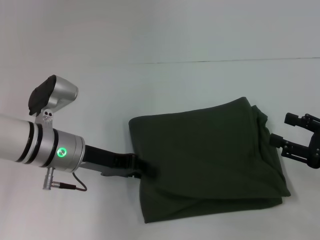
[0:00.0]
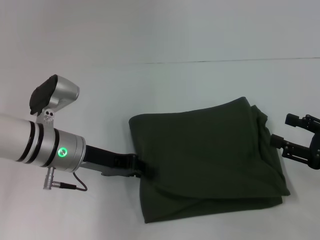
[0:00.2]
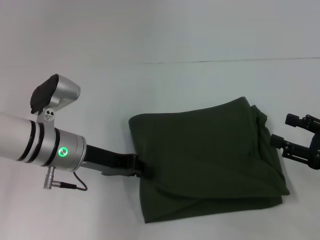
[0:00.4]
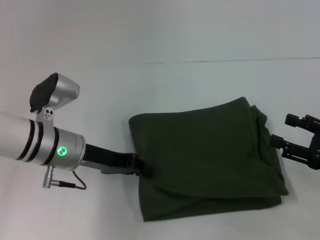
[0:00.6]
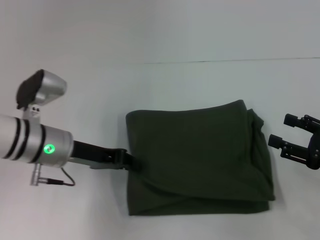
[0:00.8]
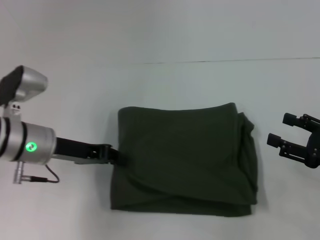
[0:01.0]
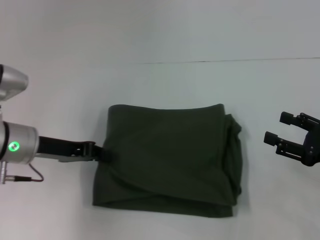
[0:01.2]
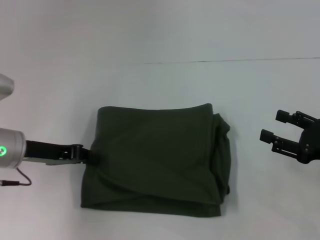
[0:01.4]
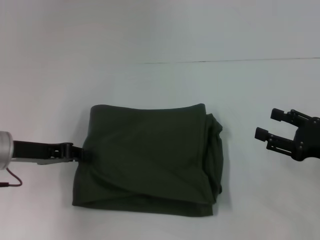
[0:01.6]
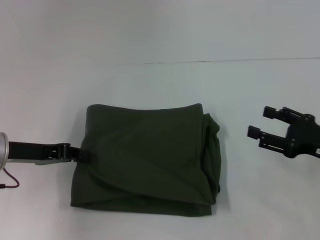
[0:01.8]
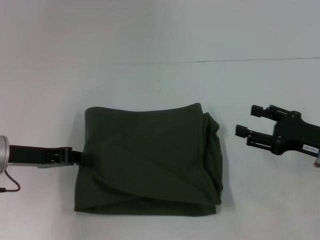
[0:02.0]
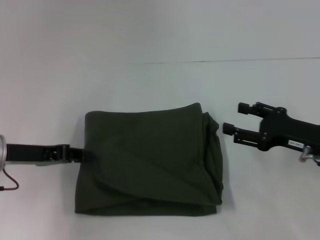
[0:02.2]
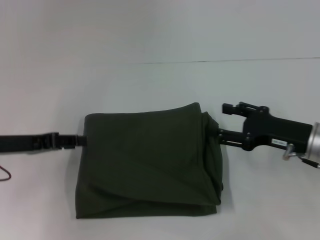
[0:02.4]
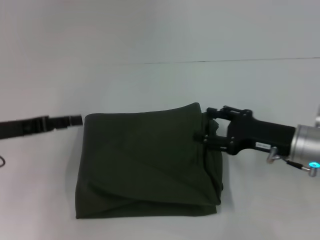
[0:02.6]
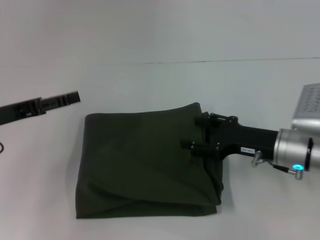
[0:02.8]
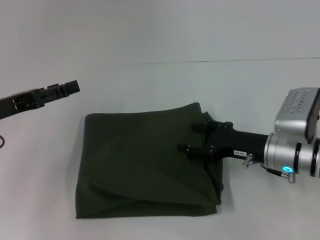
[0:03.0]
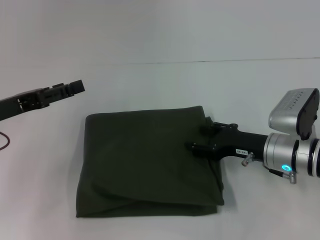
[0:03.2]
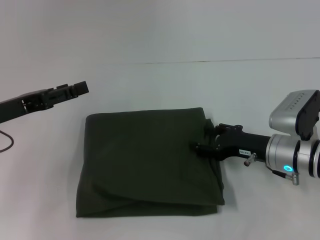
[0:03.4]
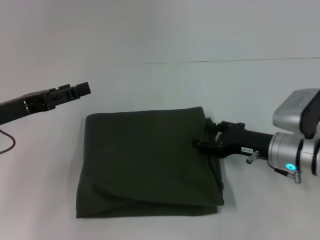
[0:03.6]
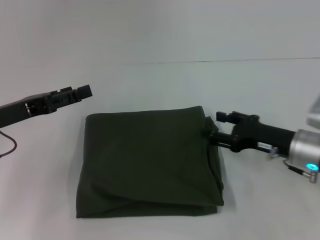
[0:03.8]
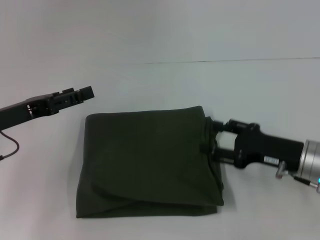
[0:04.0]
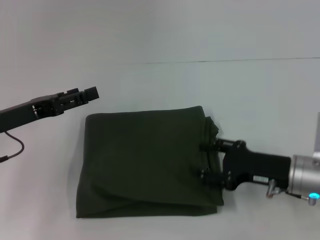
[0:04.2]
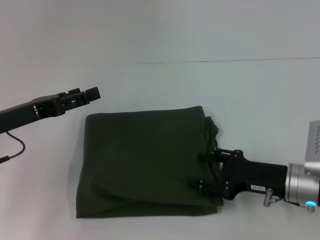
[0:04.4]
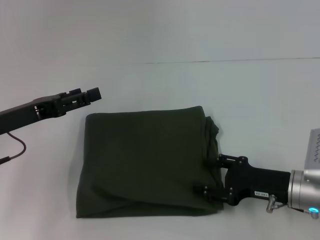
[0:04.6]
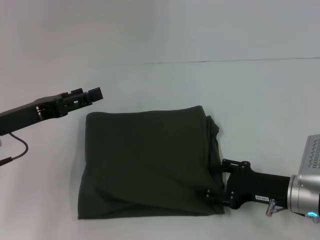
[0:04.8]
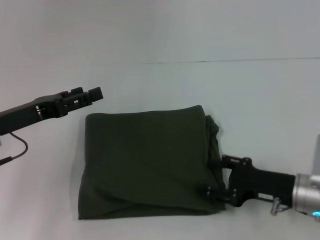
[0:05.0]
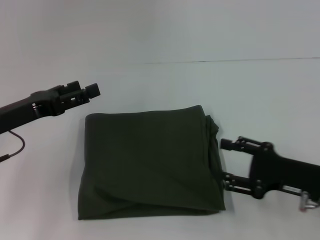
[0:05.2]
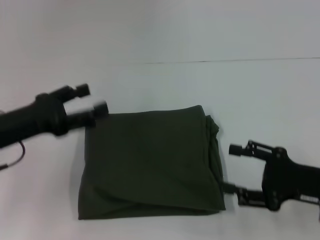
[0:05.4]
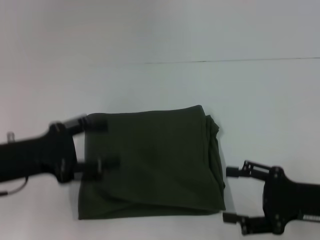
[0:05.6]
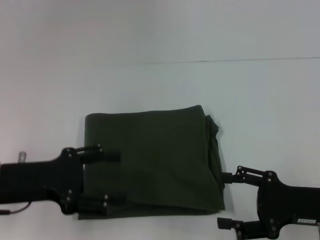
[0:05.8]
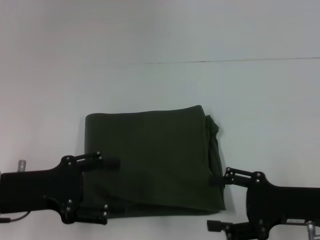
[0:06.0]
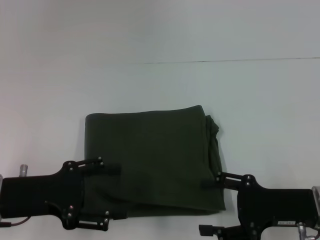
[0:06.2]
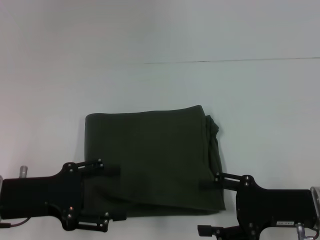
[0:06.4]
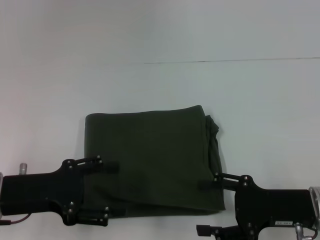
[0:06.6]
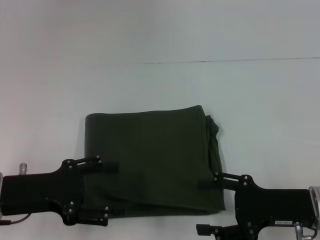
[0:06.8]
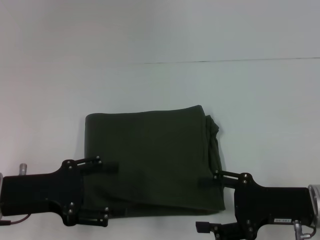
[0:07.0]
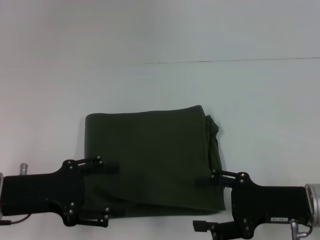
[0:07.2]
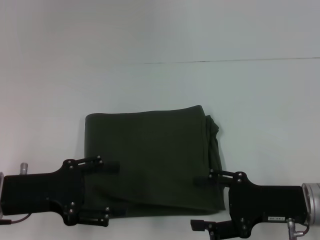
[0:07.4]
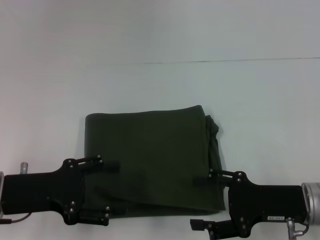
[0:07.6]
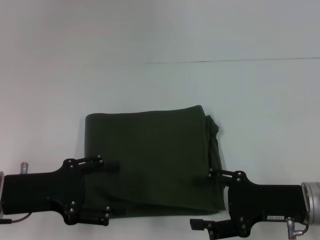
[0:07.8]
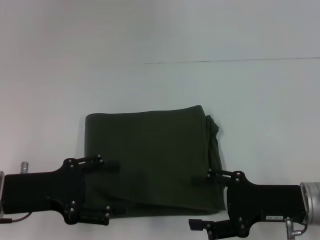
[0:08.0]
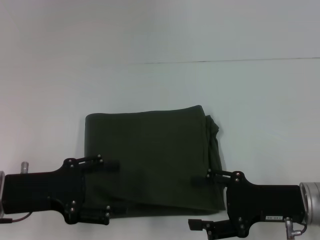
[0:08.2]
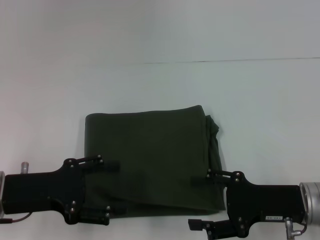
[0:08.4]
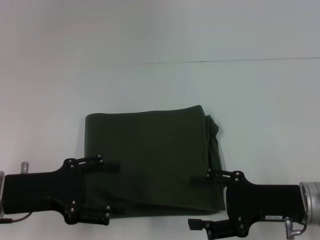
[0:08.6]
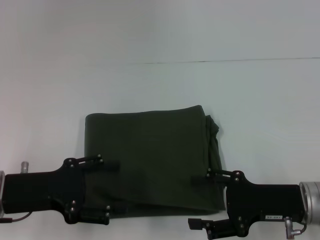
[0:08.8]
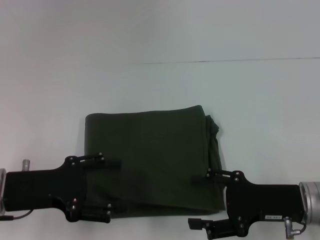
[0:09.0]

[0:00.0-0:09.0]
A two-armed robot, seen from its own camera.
0:00.0 to 0:01.6: The left gripper goes about 10 cm to the left, and closes up.
0:01.6 to 0:03.0: The left gripper opens up; the right gripper is displaced to the left and forward by approximately 15 cm.
0:03.0 to 0:04.4: The right gripper shifts by about 5 cm.
0:04.4 to 0:06.0: The right gripper moves approximately 5 cm. The left gripper goes some 5 cm backward.
0:06.0 to 0:07.6: The grippers stay close to where they were, moving slightly.
0:07.6 to 0:09.0: Both grippers stay put.

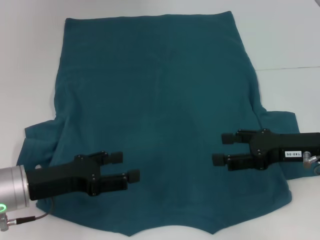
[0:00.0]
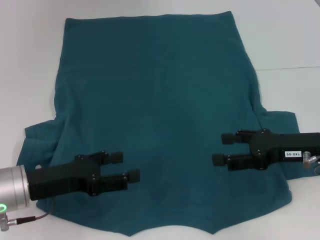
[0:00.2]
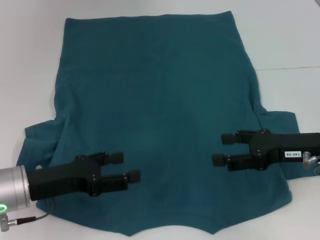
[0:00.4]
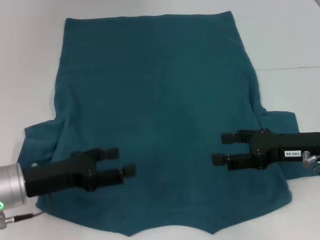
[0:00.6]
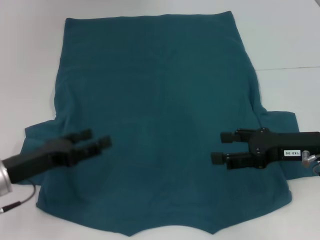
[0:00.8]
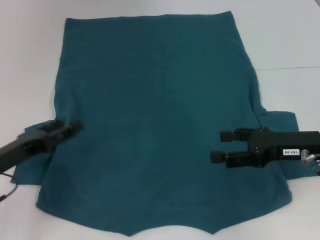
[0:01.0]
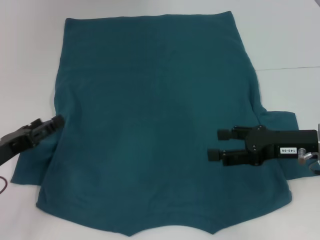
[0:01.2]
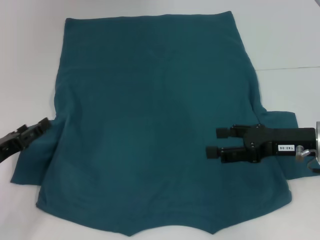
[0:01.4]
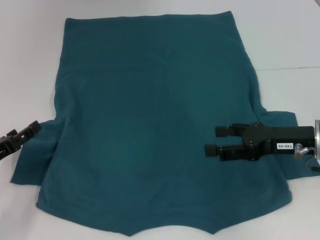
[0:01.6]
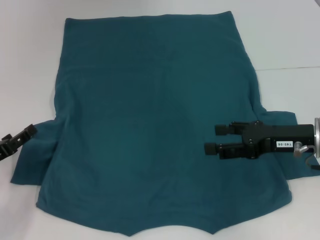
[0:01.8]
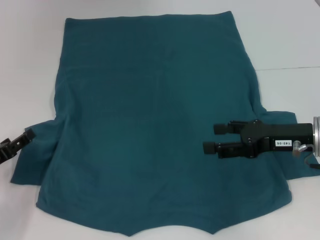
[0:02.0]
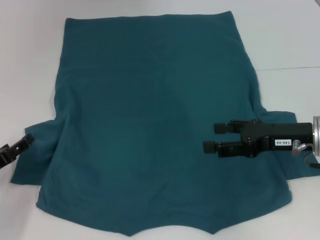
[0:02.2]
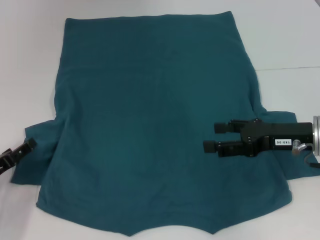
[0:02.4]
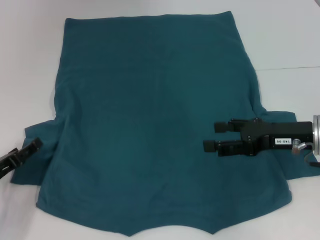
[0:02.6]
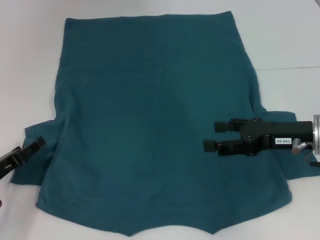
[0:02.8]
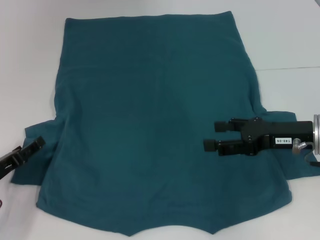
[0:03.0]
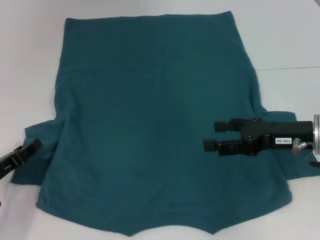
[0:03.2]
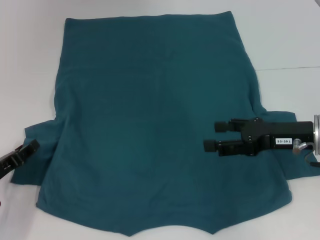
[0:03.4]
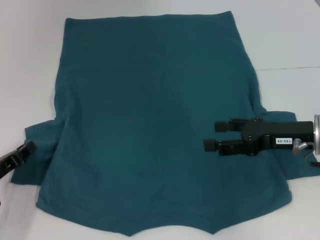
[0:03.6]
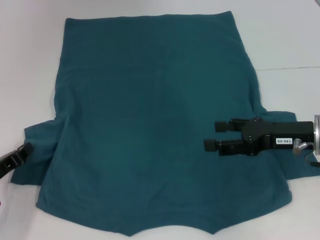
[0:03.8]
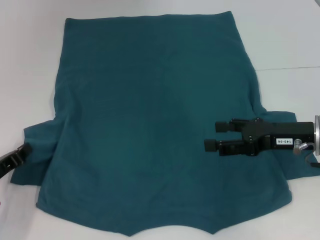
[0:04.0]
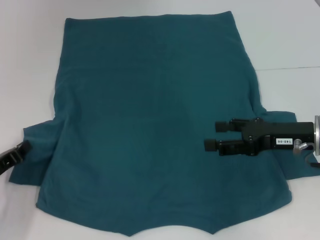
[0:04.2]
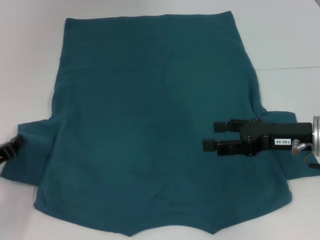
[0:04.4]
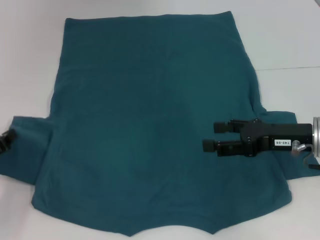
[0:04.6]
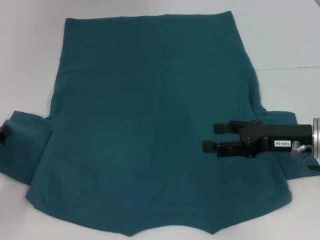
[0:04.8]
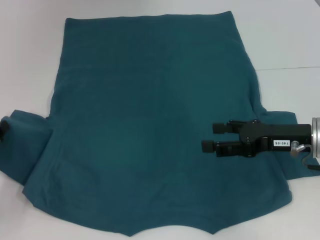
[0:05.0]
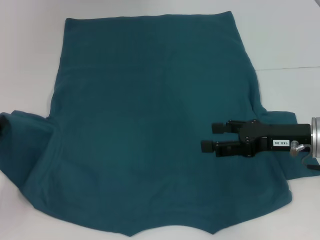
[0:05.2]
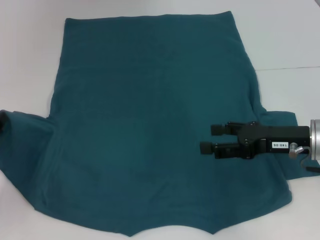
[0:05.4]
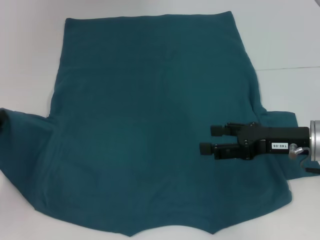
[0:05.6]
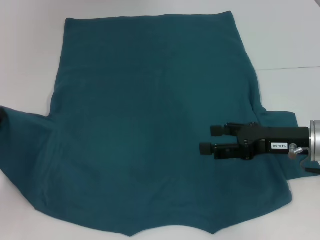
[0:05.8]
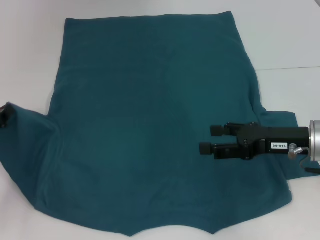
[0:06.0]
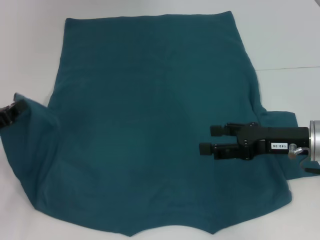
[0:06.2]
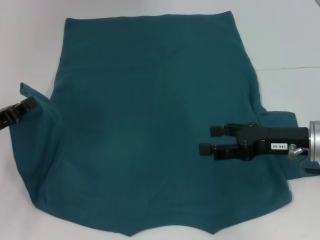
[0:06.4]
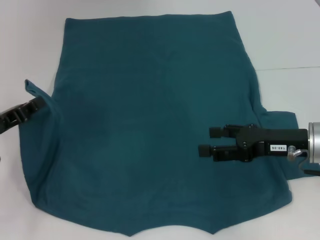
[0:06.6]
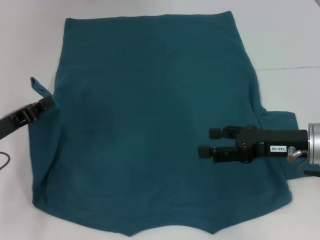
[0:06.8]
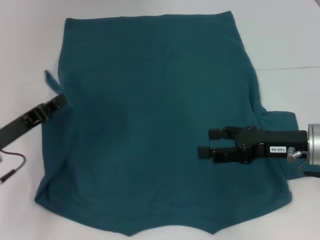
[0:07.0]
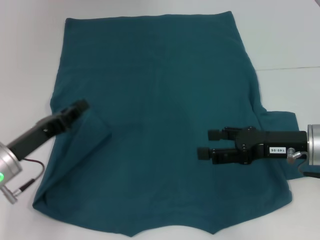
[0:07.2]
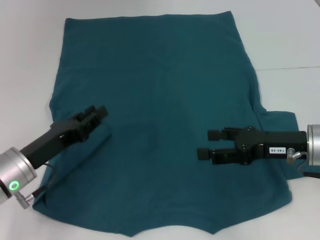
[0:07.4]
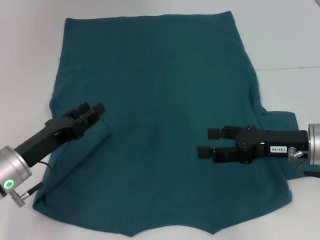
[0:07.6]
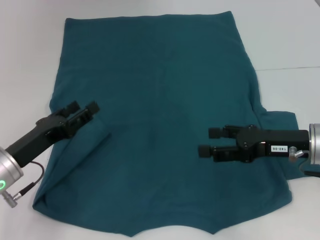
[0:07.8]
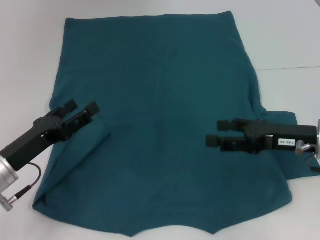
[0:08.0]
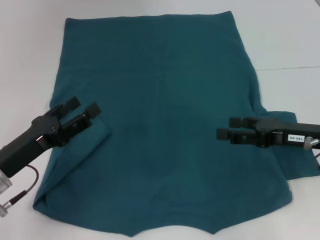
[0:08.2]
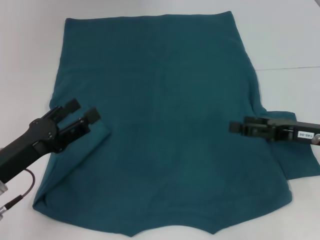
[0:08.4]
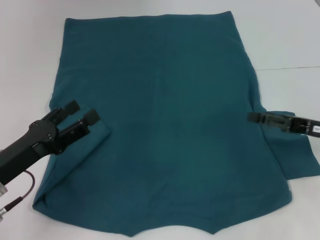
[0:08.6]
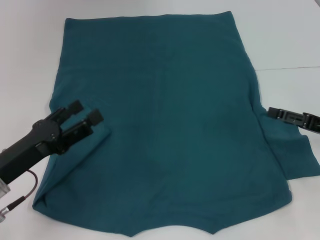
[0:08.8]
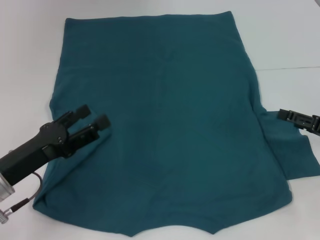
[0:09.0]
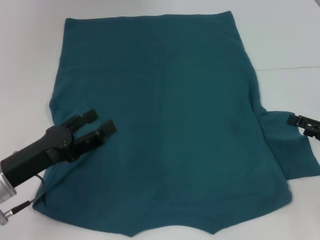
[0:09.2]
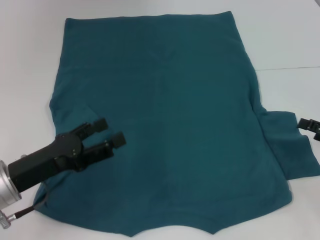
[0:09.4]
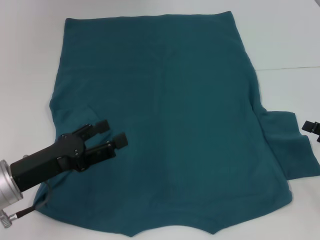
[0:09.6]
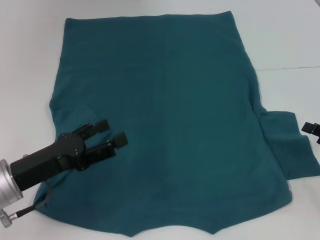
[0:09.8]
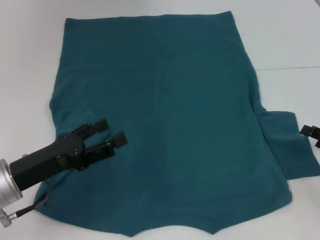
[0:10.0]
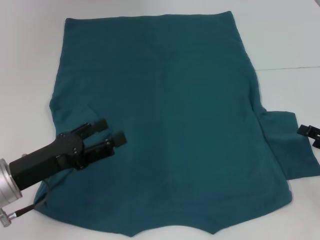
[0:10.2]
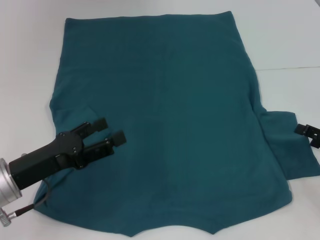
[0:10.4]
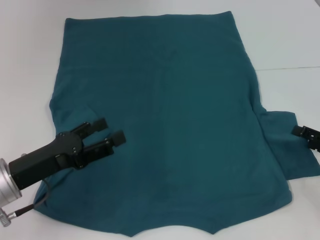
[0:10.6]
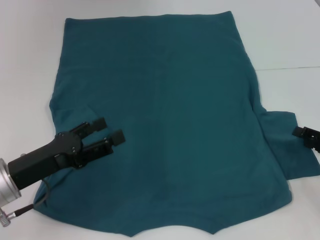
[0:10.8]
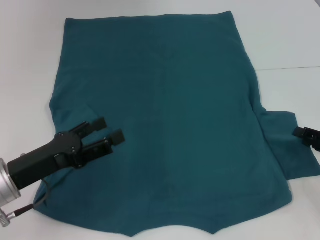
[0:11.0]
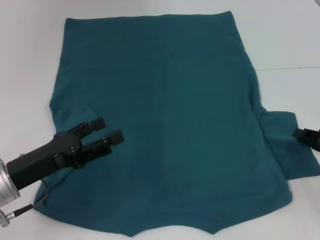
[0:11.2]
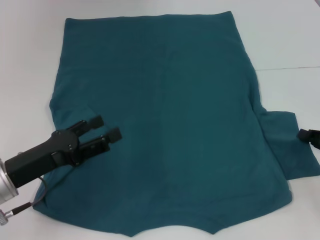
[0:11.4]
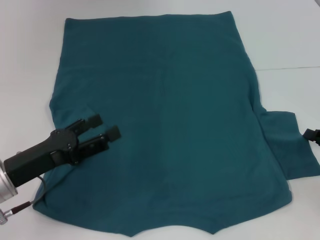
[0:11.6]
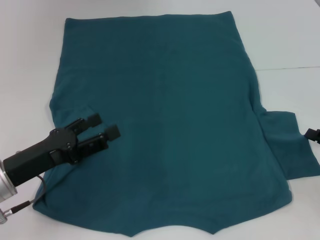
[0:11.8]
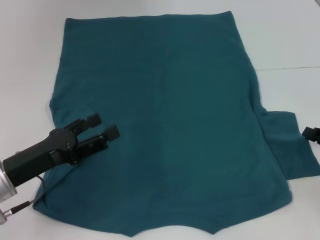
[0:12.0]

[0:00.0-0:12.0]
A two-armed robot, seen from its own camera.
Step, 0:00.0 to 0:08.4: Fold the bottom left sleeve with your left hand.
0:00.0 to 0:01.6: The left gripper travels to the left by about 10 cm.
0:01.6 to 0:03.0: The grippers move only a little.
0:03.0 to 0:04.4: The left gripper closes its fingers.
0:04.4 to 0:06.0: The left gripper shifts by roughly 5 cm.
0:06.0 to 0:07.6: The left gripper moves to the right, roughly 10 cm, and opens its fingers.
0:07.6 to 0:09.0: The left gripper opens up, while the right gripper moves to the right, about 10 cm.
0:09.0 to 0:10.4: The grippers move only a little.

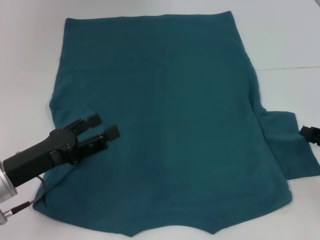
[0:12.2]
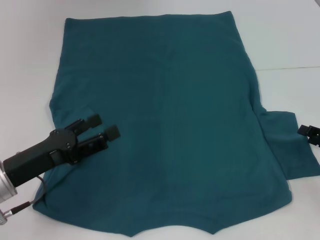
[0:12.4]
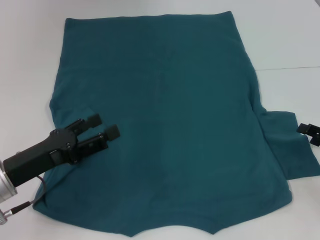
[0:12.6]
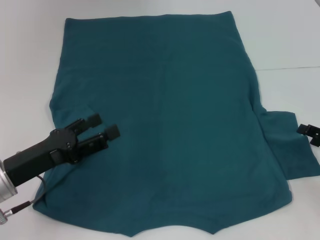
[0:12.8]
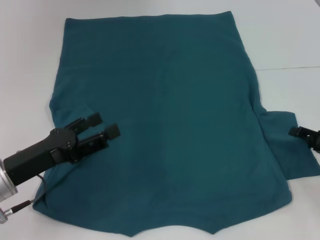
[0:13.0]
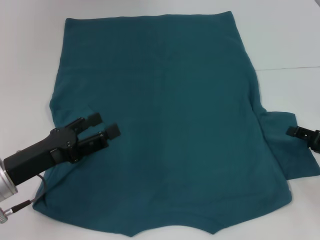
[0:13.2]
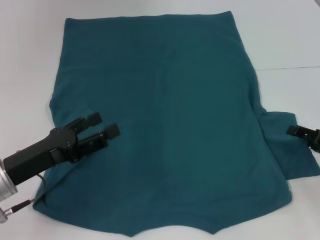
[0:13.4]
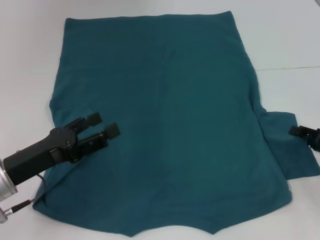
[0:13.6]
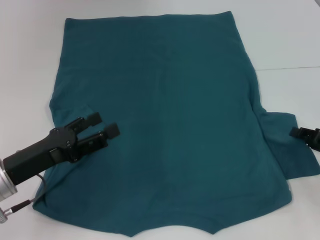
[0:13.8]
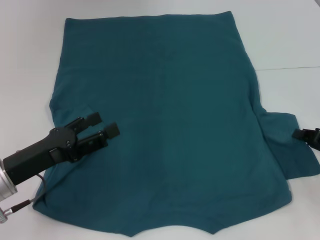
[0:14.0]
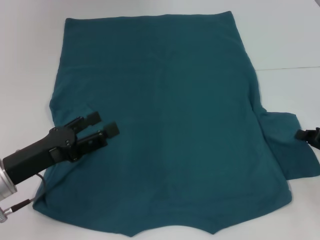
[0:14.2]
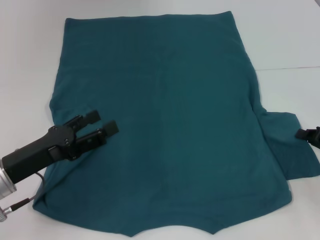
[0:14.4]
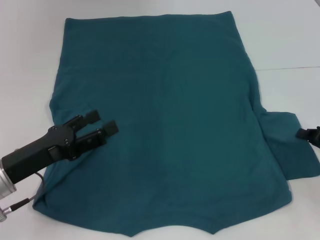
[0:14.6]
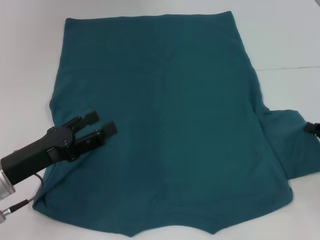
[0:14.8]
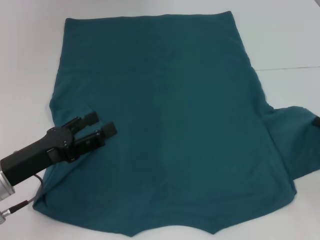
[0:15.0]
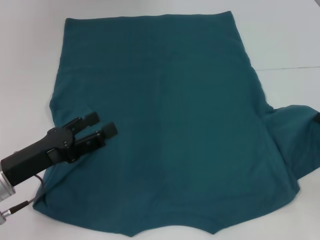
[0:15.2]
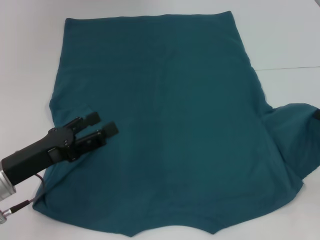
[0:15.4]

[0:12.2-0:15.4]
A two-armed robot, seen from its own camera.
0:13.8 to 0:15.4: The right gripper closes up.
